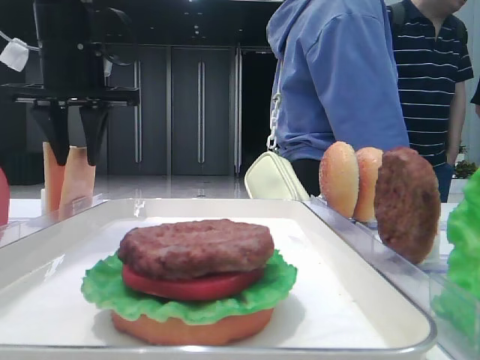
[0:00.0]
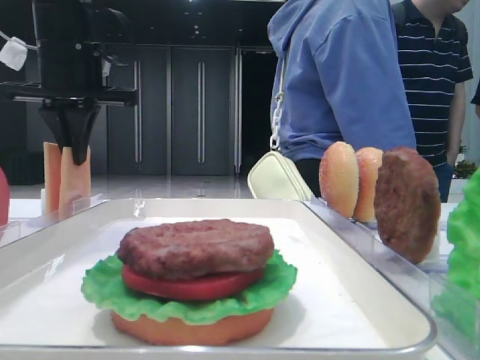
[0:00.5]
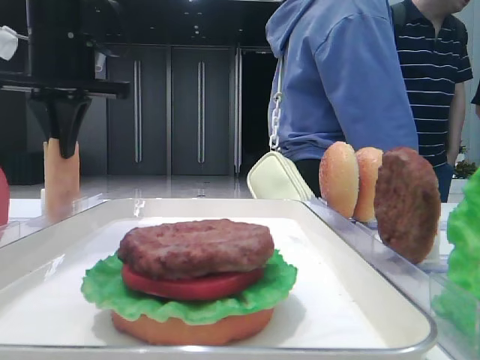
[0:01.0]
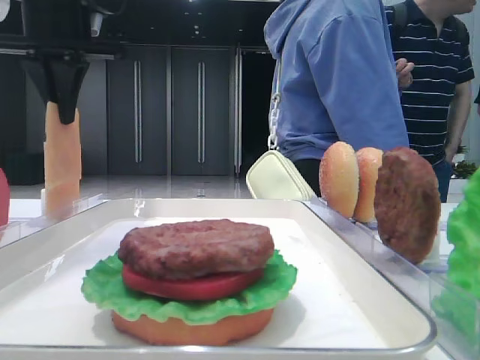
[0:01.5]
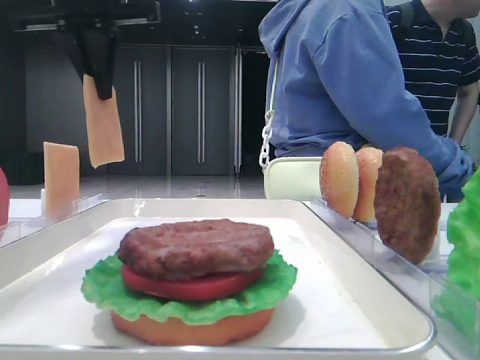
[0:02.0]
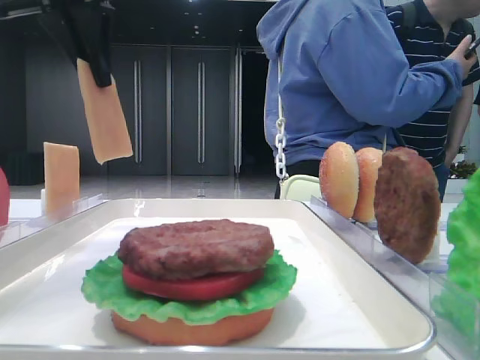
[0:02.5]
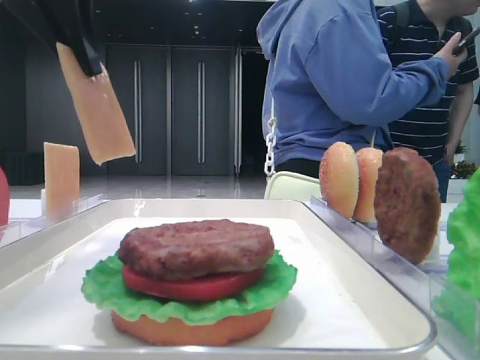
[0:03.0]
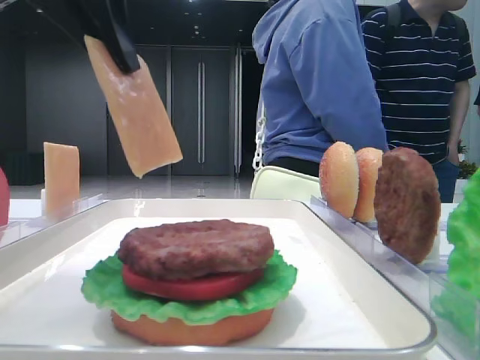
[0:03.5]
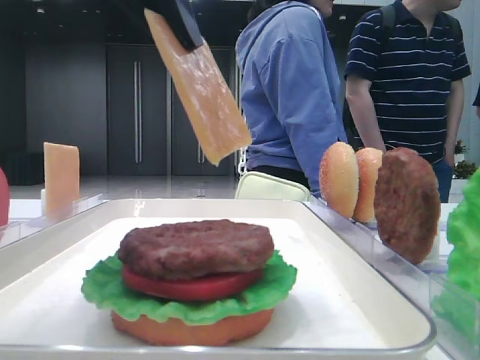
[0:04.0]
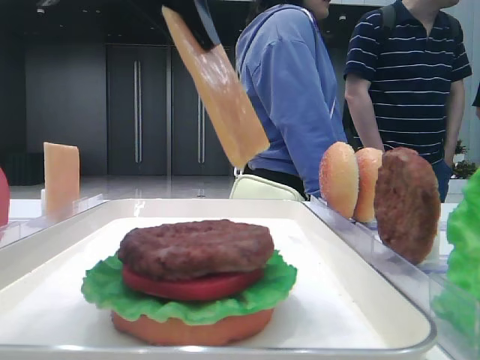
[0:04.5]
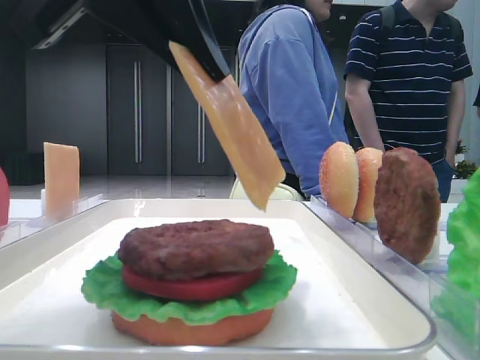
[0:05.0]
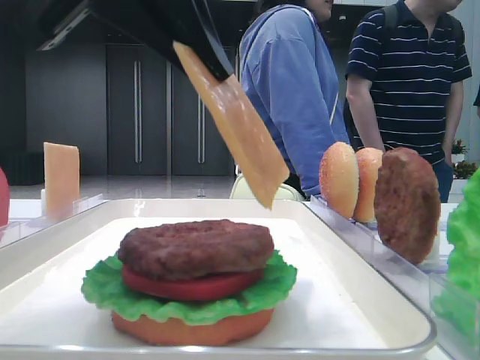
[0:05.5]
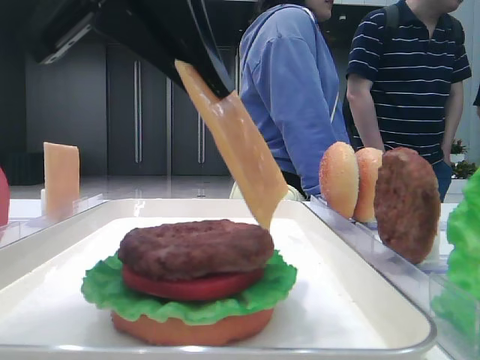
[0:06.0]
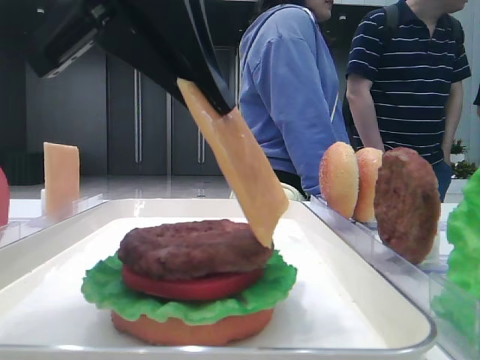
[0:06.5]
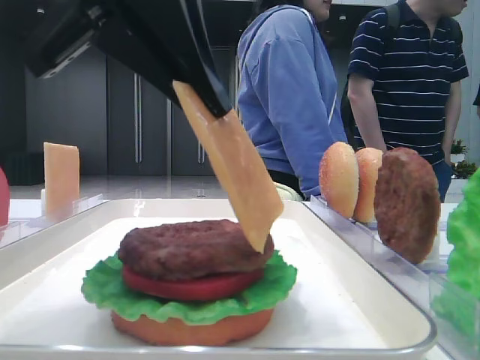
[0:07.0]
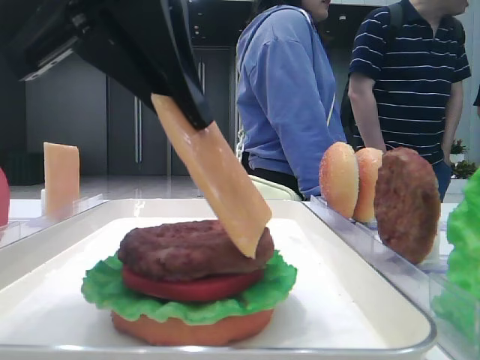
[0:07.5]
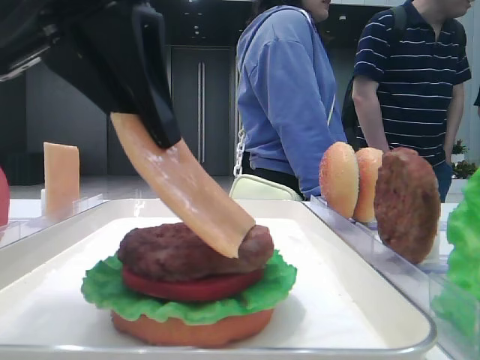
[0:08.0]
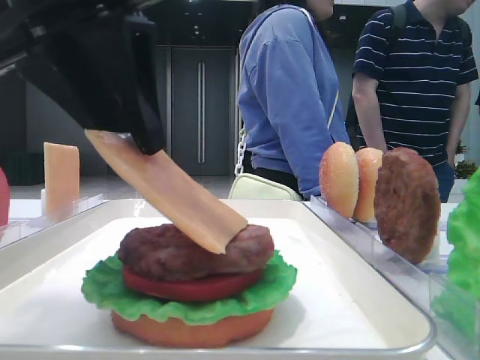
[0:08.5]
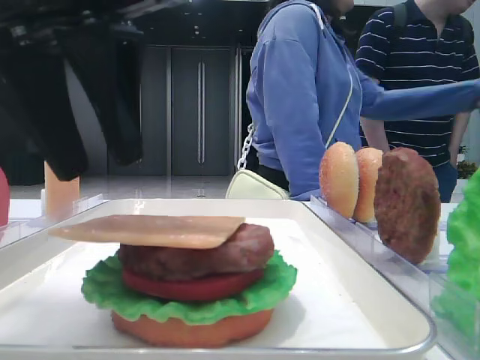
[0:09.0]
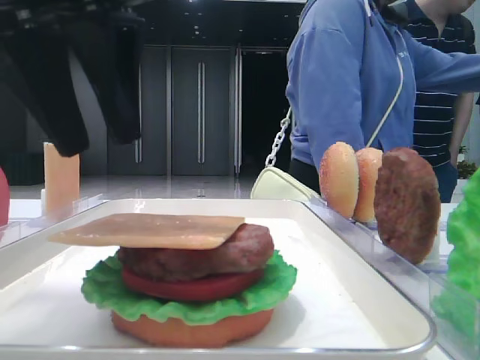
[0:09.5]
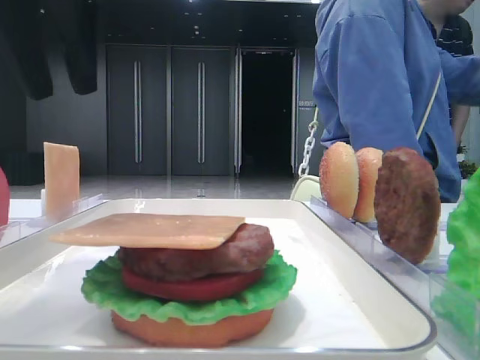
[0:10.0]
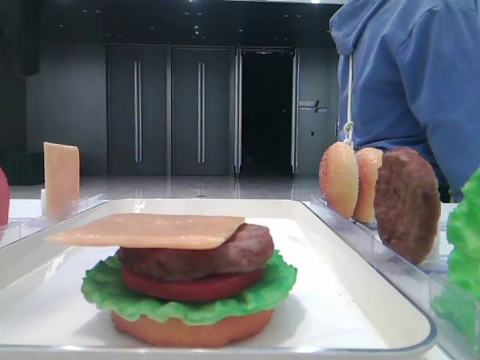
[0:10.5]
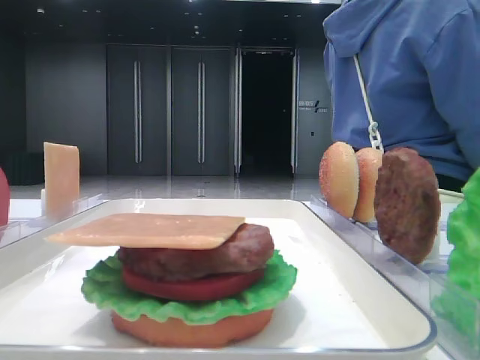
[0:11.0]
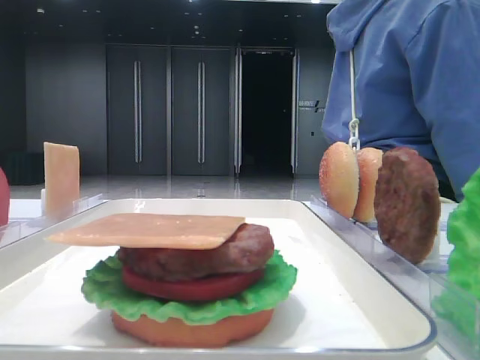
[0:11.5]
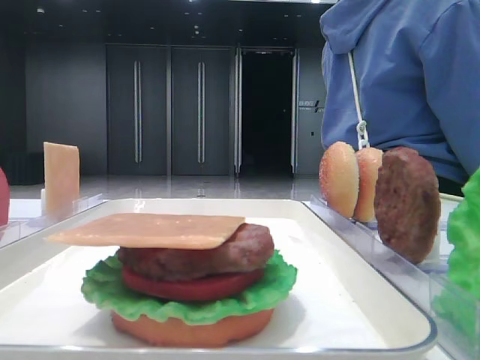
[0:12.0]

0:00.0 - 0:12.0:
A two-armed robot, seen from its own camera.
Step, 0:01.0 - 0:08.5: Place the cheese slice on the patty with the left hand.
0:00.0 - 0:02.0: The left gripper shifts roughly 5 cm upward, and closes its fingers.
0:02.0 - 0:04.0: The left gripper moves backward, about 15 cm.
0:04.0 - 0:08.0: The grippers move only a little.
0:08.0 - 0:10.0: The left gripper moves forward and to the left, about 5 cm, and opens its fingers.
0:10.0 - 0:12.0: The left gripper travels to the left by approximately 20 cm.

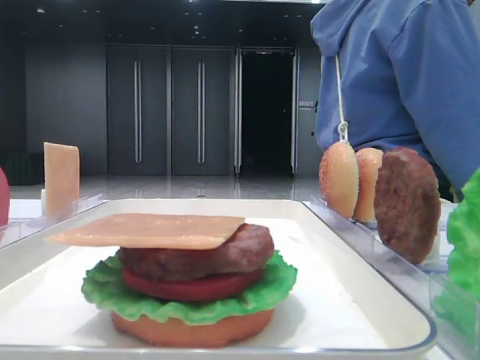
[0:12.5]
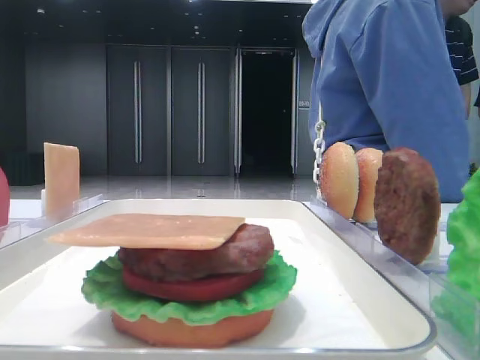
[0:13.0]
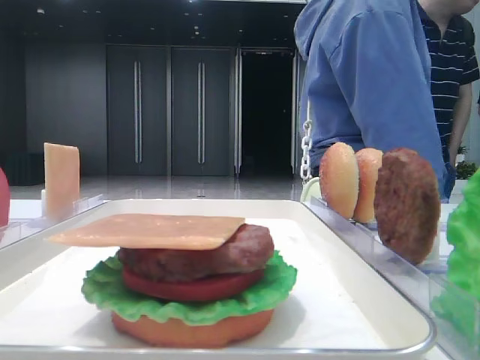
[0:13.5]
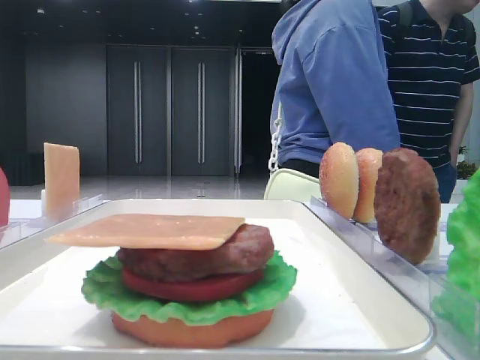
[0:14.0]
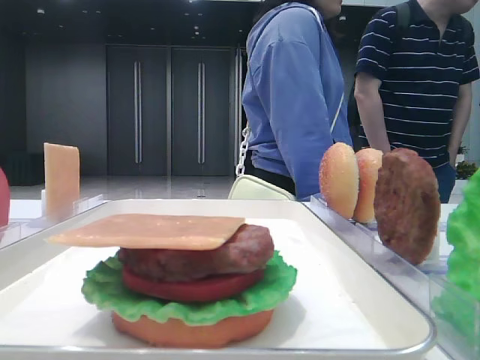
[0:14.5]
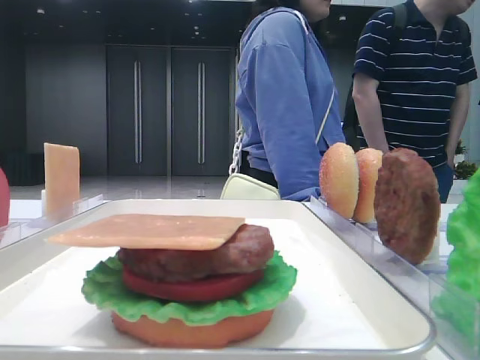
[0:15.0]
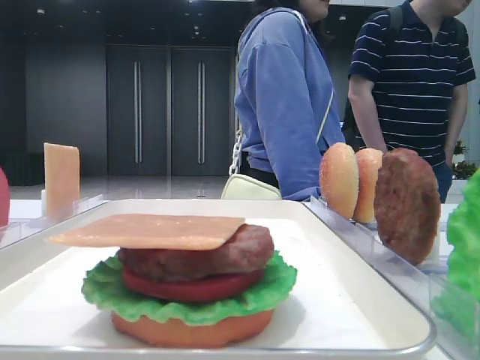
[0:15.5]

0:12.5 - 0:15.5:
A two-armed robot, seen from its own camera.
0:12.5 - 0:14.0: The left gripper travels backward by roughly 20 cm.
0:14.0 - 0:15.5: The grippers move only a little.
